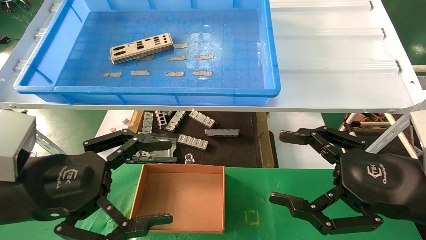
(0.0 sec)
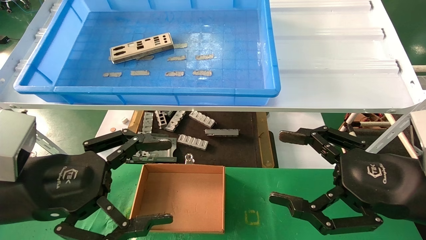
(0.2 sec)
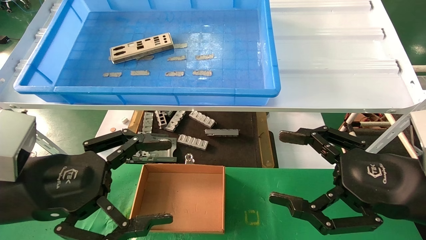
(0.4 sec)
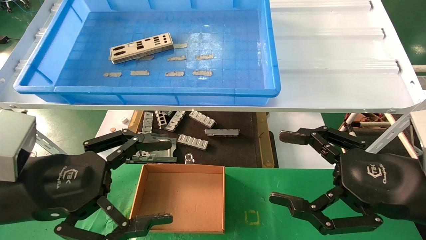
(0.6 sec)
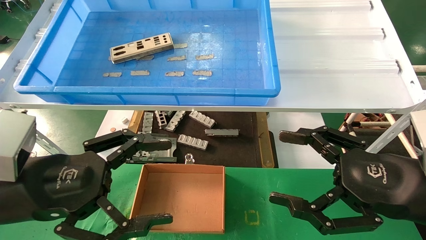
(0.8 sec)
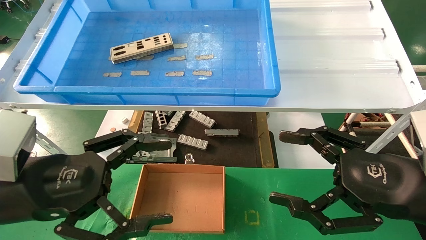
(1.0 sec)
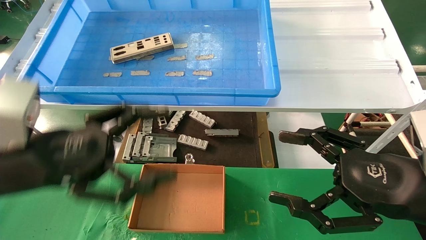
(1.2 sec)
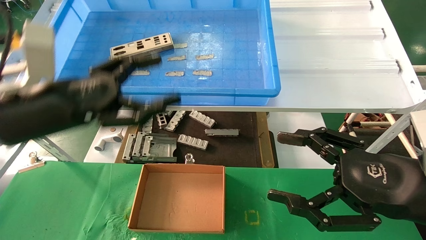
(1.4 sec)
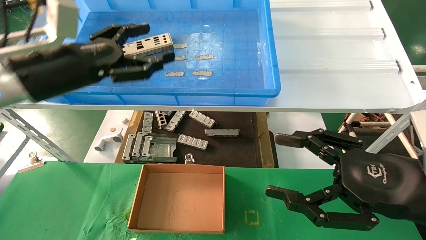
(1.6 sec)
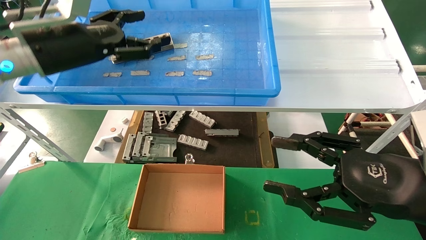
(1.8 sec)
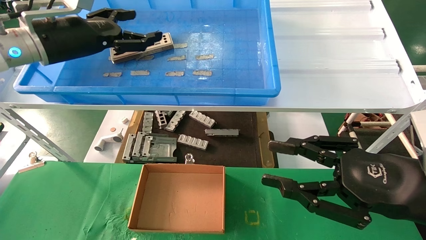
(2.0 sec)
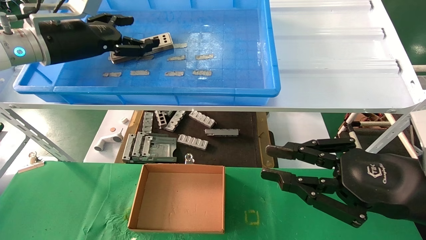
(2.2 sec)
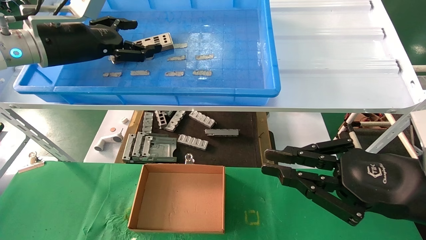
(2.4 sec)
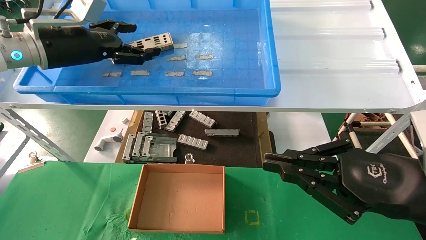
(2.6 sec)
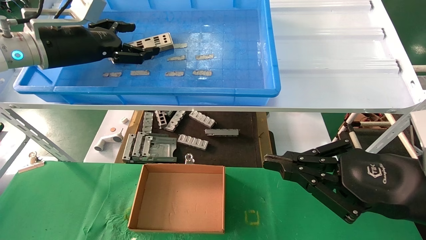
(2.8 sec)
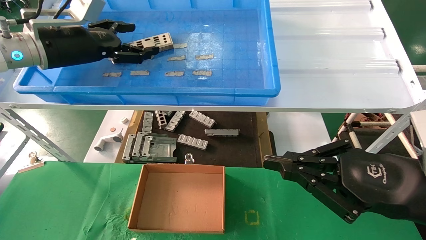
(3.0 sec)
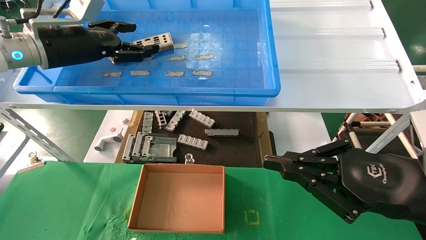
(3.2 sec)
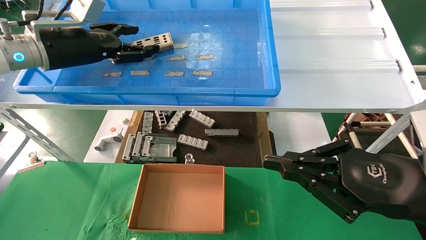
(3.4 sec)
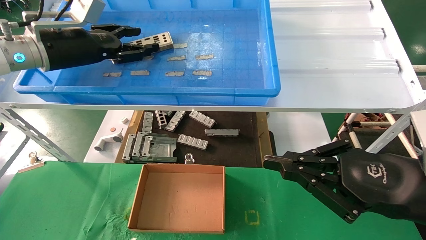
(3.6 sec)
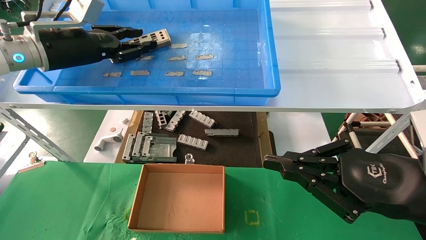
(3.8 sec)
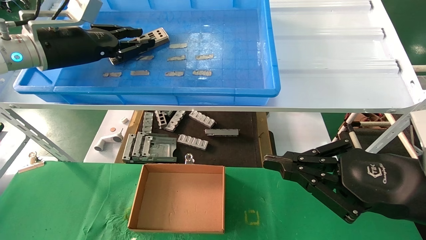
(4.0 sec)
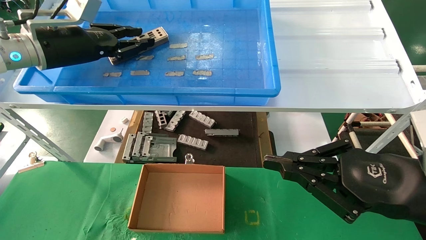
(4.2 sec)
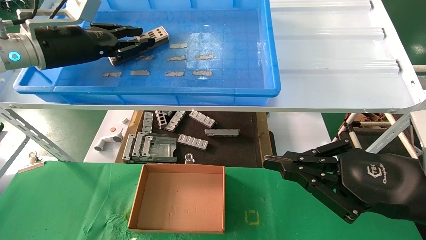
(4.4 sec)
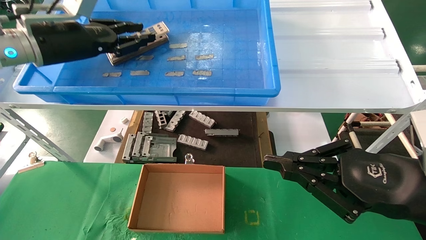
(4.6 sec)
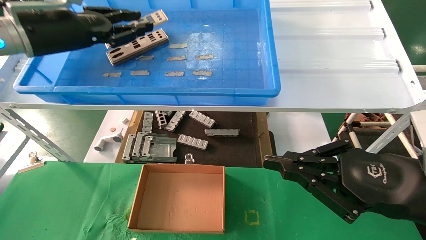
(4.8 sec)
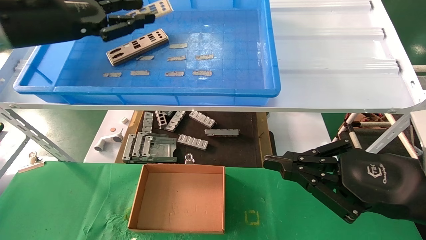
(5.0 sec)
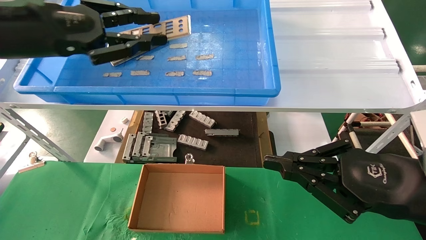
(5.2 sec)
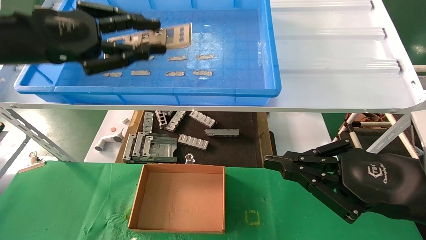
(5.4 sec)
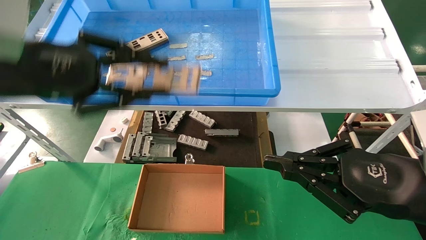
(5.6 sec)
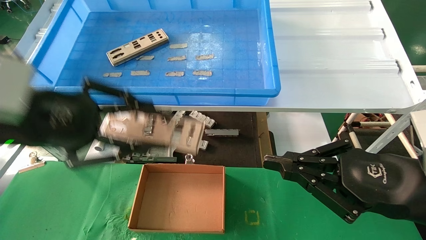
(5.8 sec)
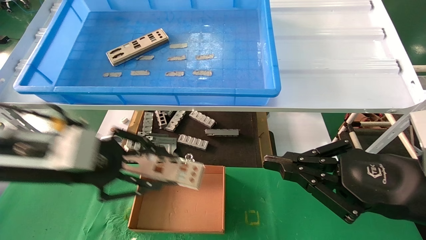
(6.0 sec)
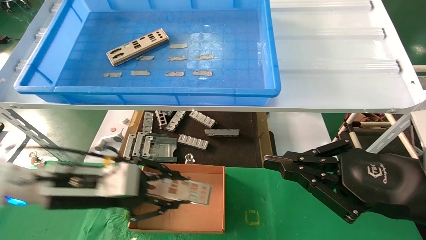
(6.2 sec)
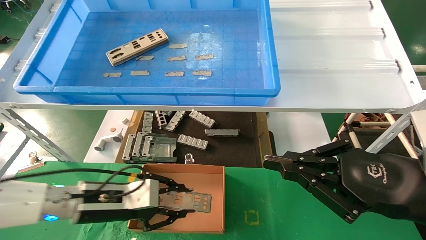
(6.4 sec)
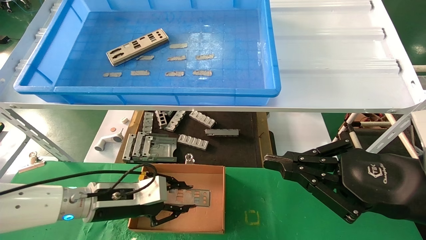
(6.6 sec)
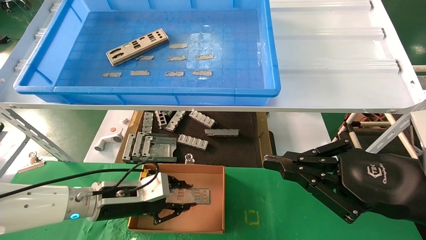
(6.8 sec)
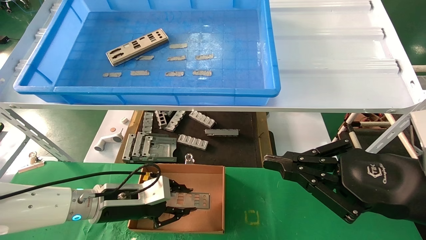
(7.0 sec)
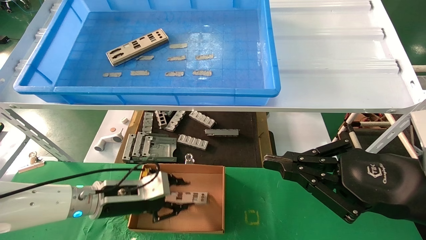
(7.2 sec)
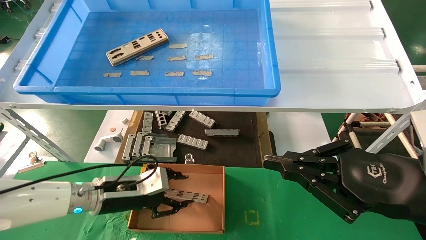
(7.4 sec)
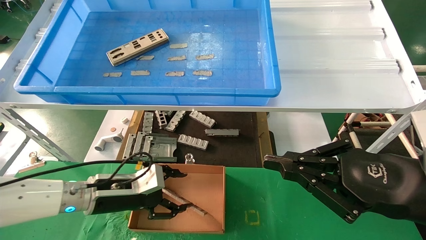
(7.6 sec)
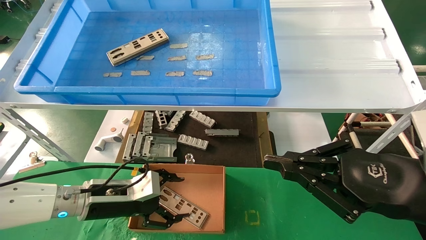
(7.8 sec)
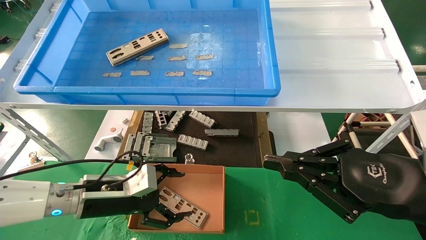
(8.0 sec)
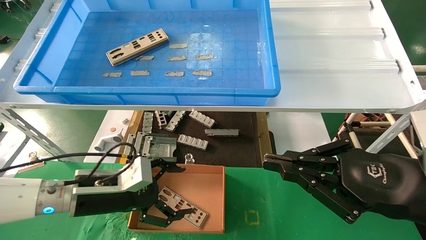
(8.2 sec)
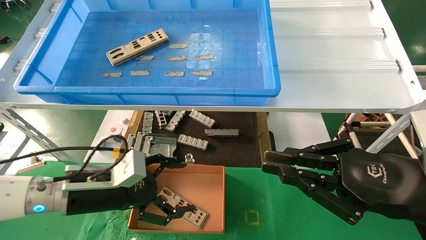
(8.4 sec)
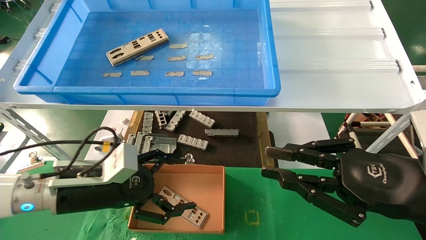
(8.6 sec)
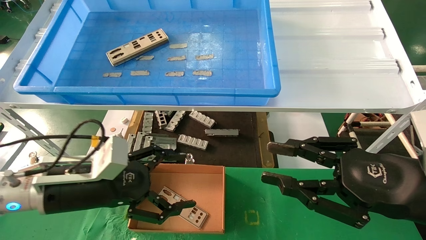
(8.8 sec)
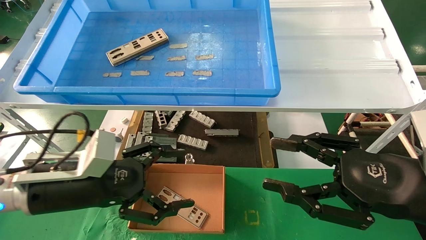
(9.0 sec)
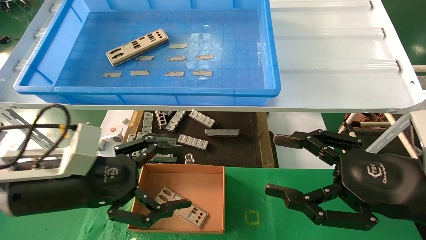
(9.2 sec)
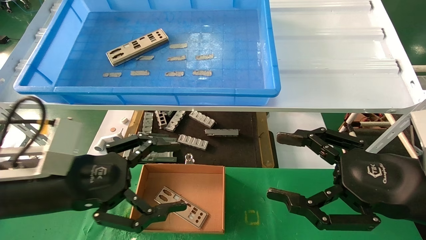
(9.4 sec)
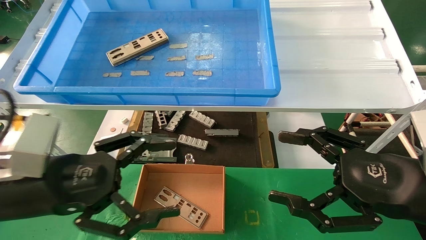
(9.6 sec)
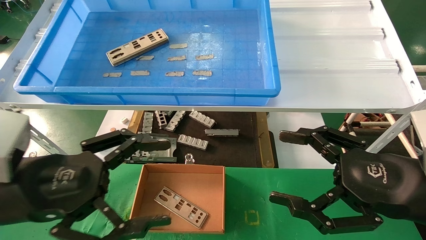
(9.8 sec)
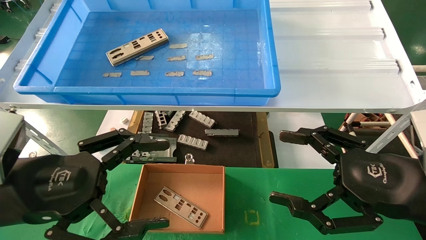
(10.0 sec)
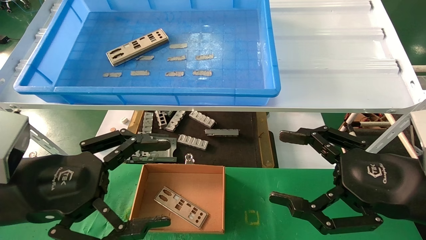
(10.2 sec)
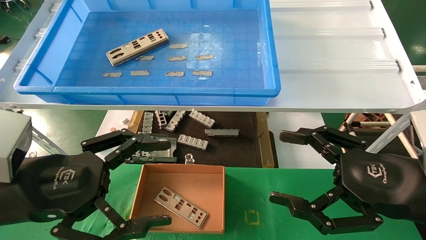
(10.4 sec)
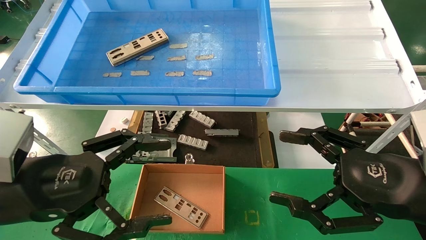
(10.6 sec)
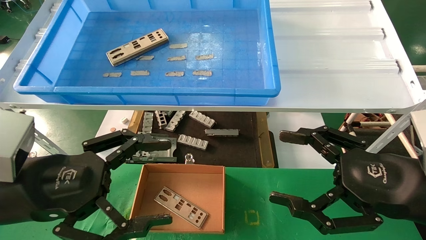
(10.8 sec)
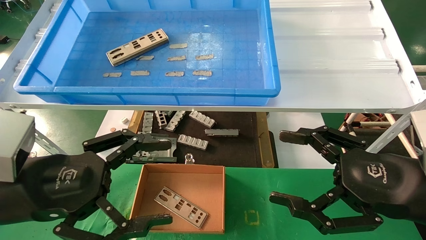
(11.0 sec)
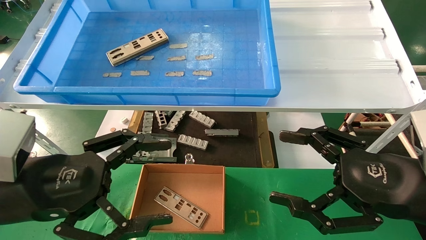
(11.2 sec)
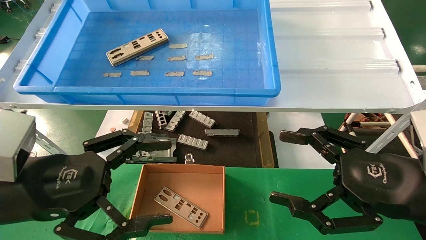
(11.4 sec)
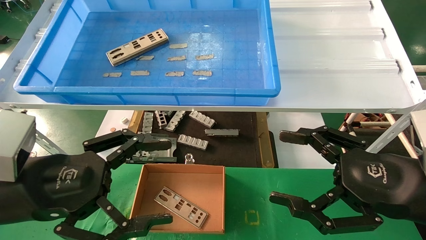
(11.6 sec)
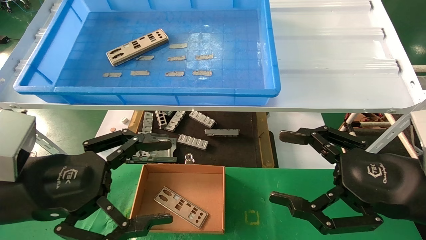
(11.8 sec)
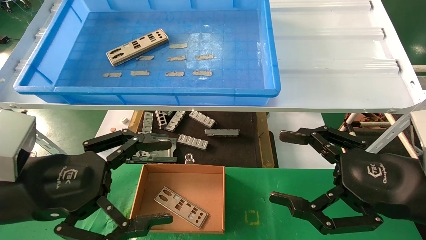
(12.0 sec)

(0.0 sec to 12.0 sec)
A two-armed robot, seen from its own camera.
Task of the whole recording: pick up the parts on the tray and put them in the cardboard box.
Step, 1.2 sec - 4.6 sec: Pick up the IO bracket from the container box.
Step, 4.8 sec - 7.2 sec: Place the IO bracket into the ingredient slot.
0.0 sec - 1.6 sec: The left gripper heads forward and upward, covering some 15 cm.
1.6 sec - 3.0 sec: The right gripper closes up. The left gripper travels forward by approximately 5 cm.
3.0 sec - 4.4 sec: The left gripper closes.
4.4 sec - 6.0 sec: The left gripper goes about 20 cm downward and backward.
6.0 sec - 7.6 sec: The left gripper is displaced downward and forward by some 15 cm, and opens its fingers.
7.6 sec - 9.0 sec: The right gripper opens up. Meanwhile the left gripper goes about 10 cm backward and upward, and opens up.
9.0 sec - 10.4 sec: The left gripper travels backward by roughly 5 cm. The right gripper opens up.
10.4 sec - 12.0 sec: Both grippers stay put.

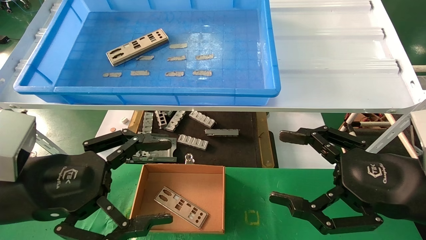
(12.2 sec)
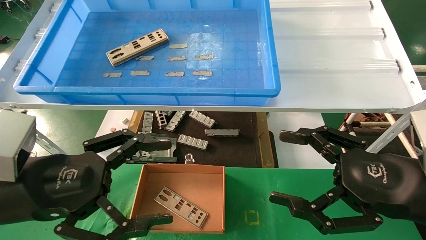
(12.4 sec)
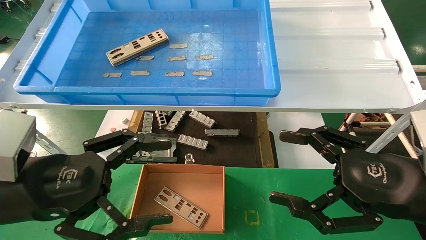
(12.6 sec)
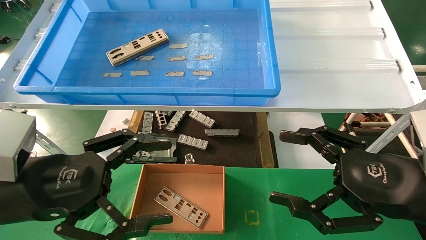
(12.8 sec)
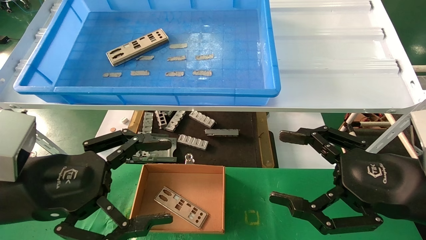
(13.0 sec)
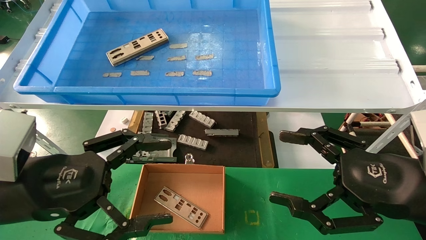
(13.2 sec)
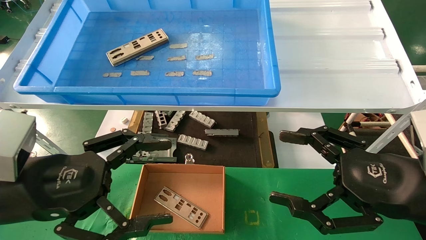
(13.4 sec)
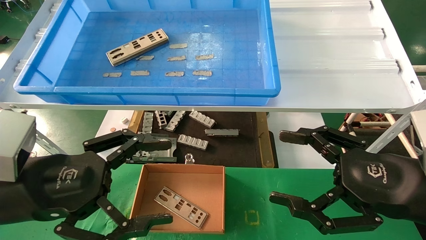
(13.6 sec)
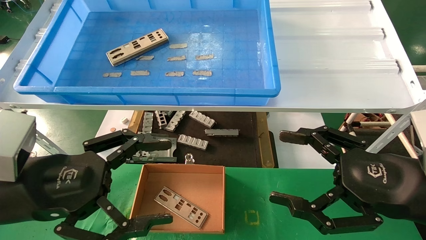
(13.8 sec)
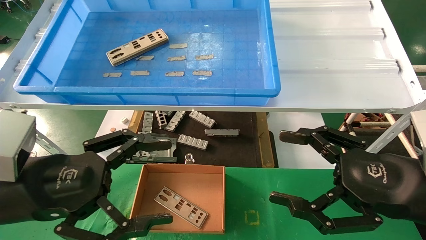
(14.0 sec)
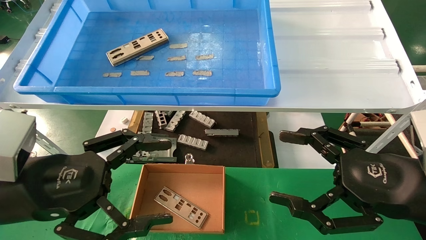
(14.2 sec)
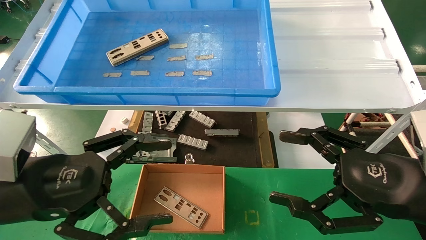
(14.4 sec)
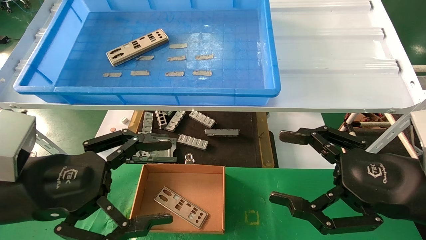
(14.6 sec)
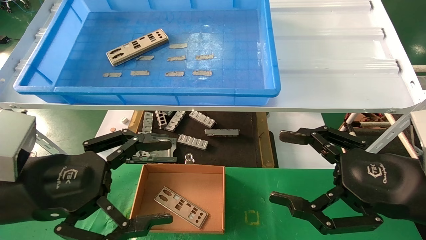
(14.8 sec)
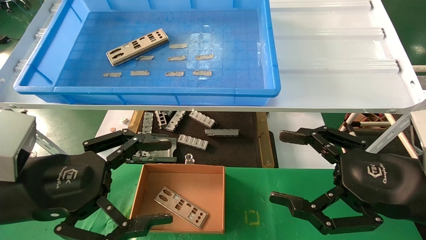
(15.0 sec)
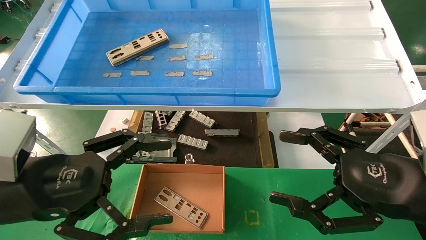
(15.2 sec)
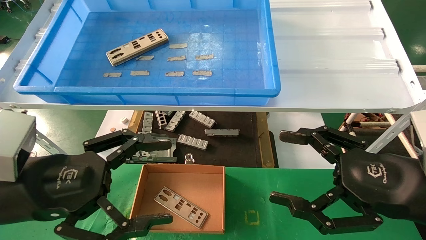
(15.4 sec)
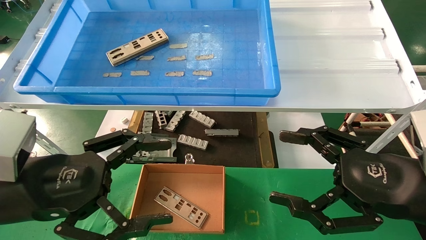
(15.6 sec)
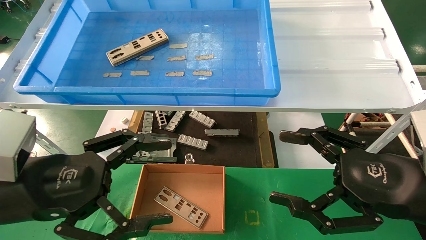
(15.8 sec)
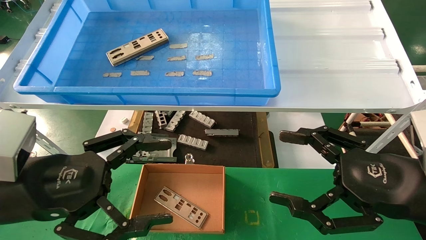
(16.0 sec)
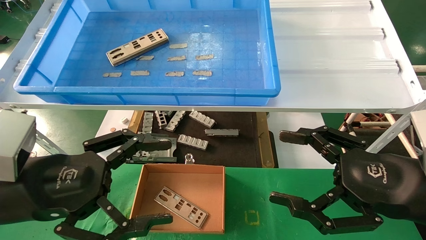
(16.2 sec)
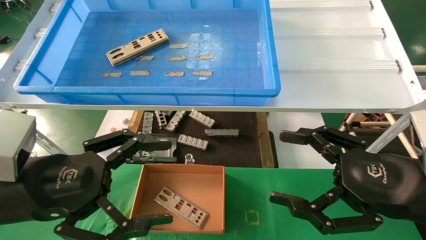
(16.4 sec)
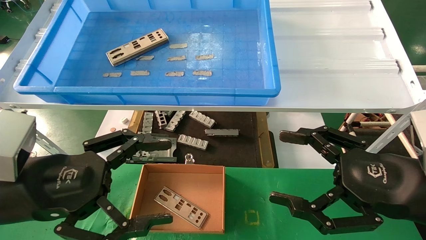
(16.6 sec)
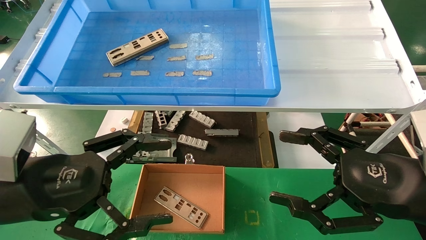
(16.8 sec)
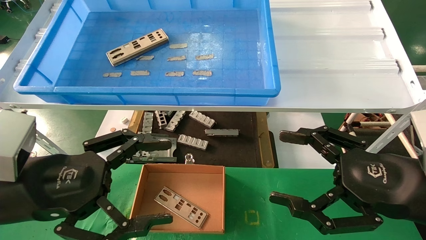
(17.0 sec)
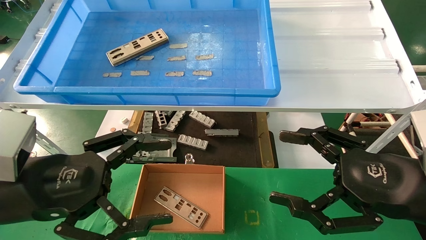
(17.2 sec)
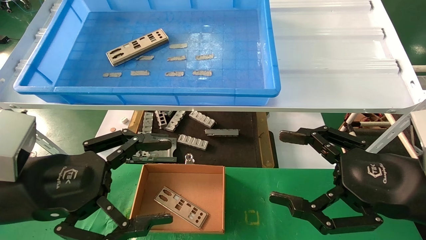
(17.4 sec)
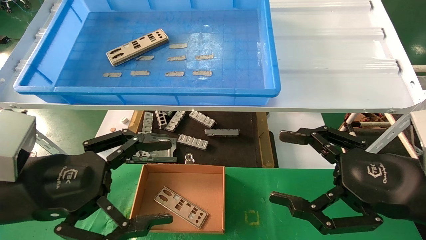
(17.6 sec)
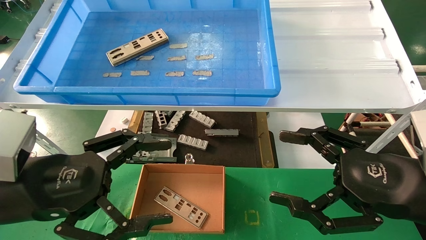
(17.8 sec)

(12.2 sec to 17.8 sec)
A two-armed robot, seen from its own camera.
Task of the whole recording: pick up the parts on the tray and put them in the cardboard box.
12.2 sec - 17.8 sec: Both grippers stay put.
